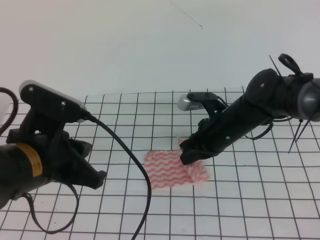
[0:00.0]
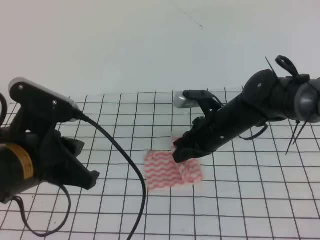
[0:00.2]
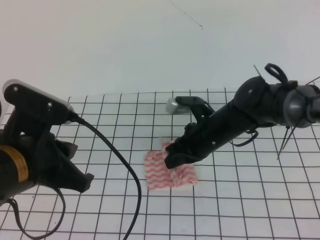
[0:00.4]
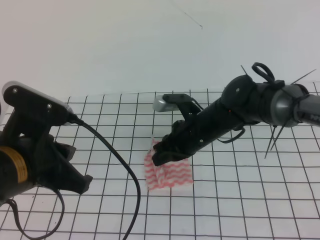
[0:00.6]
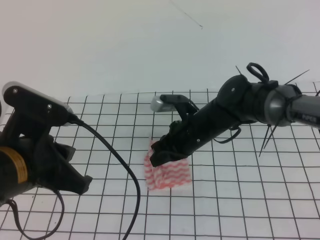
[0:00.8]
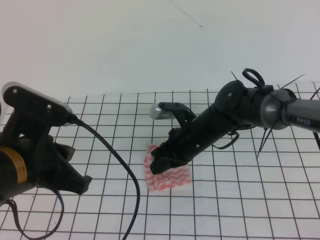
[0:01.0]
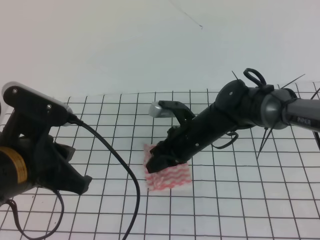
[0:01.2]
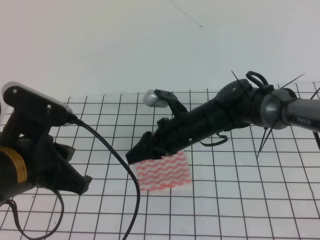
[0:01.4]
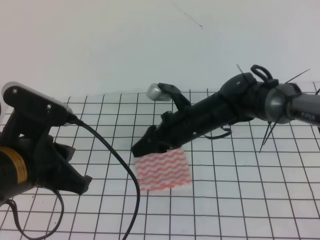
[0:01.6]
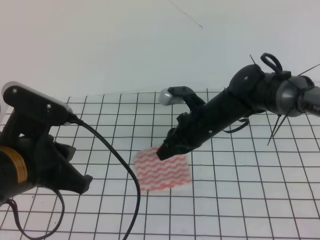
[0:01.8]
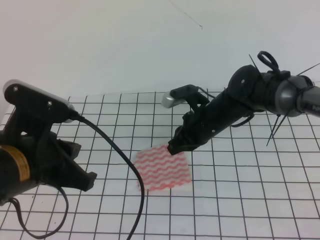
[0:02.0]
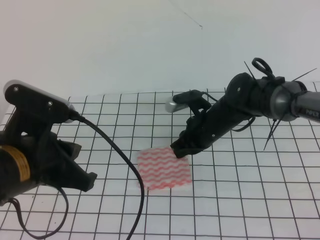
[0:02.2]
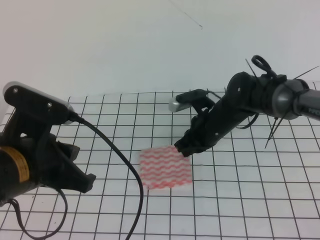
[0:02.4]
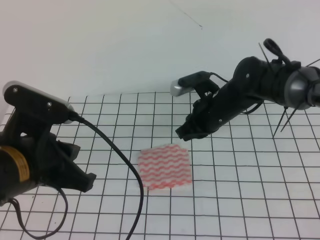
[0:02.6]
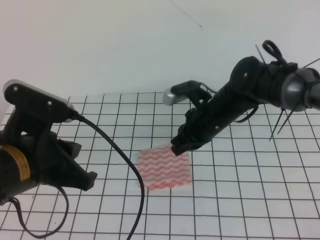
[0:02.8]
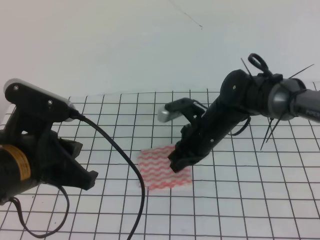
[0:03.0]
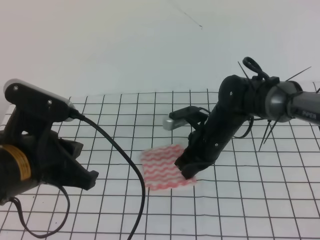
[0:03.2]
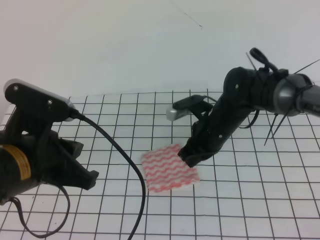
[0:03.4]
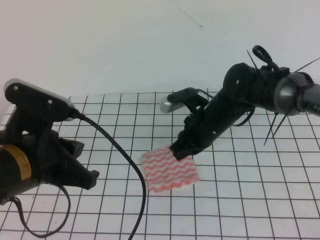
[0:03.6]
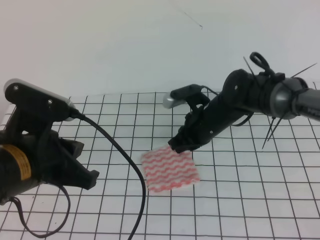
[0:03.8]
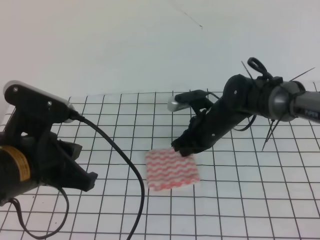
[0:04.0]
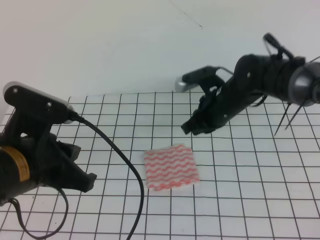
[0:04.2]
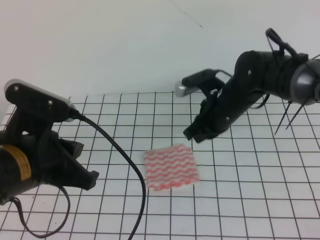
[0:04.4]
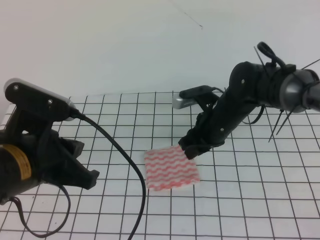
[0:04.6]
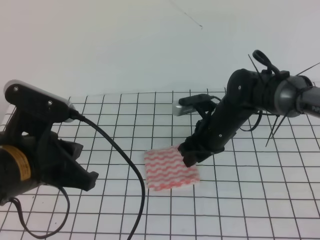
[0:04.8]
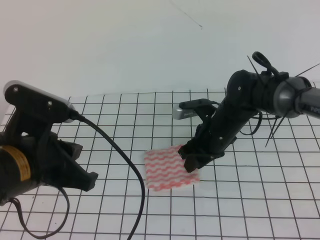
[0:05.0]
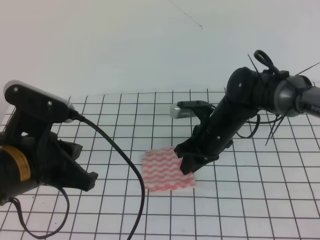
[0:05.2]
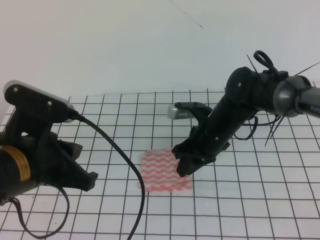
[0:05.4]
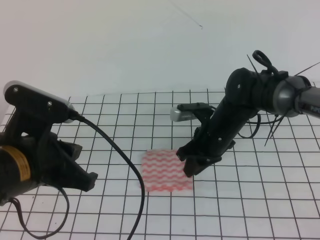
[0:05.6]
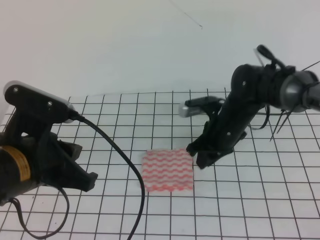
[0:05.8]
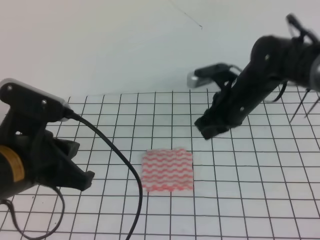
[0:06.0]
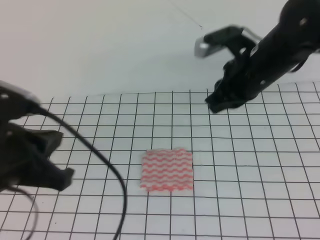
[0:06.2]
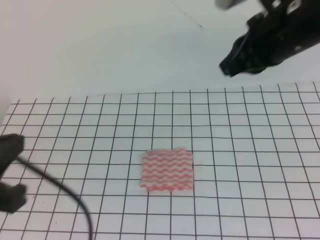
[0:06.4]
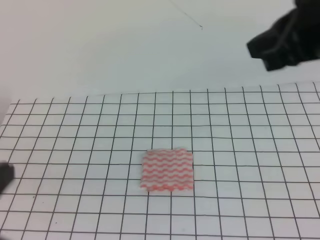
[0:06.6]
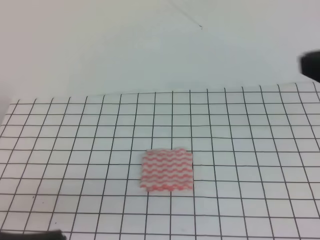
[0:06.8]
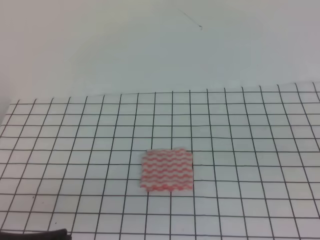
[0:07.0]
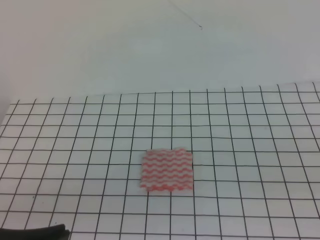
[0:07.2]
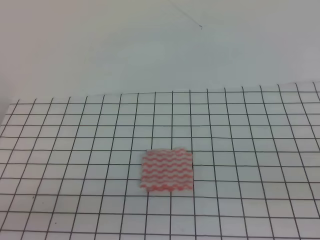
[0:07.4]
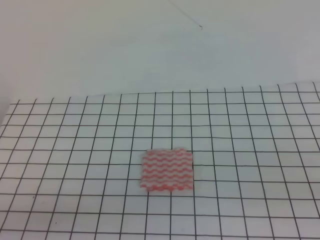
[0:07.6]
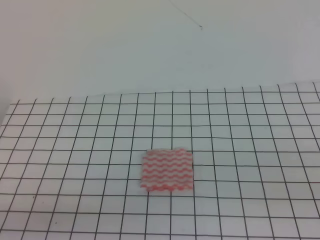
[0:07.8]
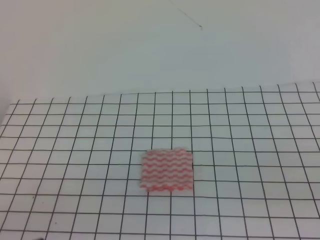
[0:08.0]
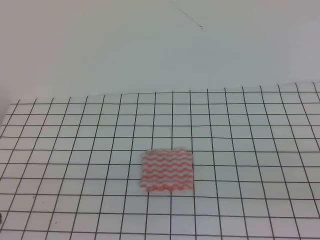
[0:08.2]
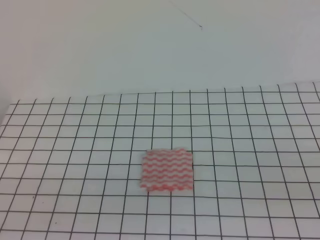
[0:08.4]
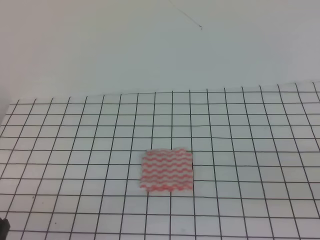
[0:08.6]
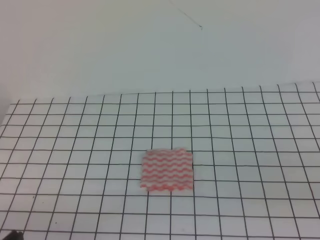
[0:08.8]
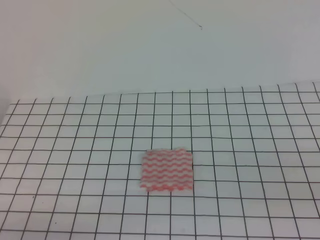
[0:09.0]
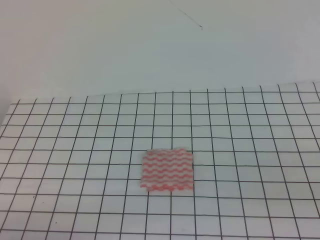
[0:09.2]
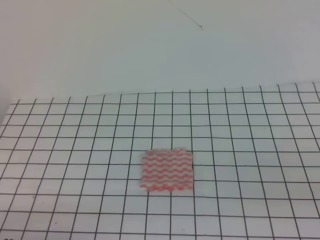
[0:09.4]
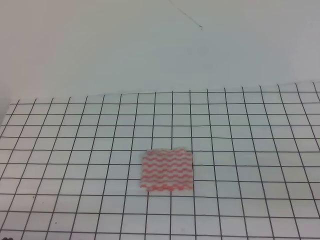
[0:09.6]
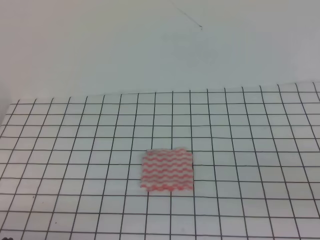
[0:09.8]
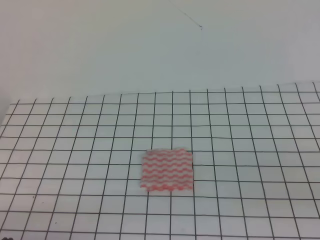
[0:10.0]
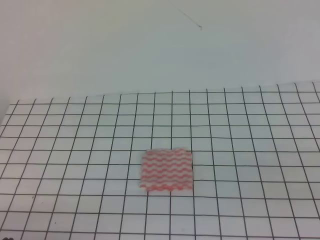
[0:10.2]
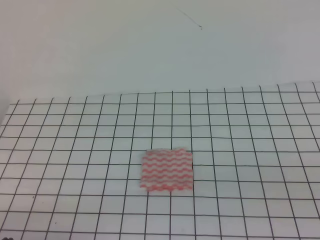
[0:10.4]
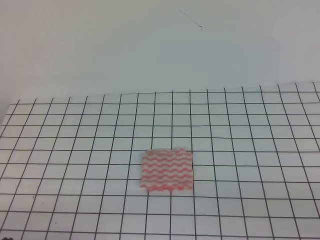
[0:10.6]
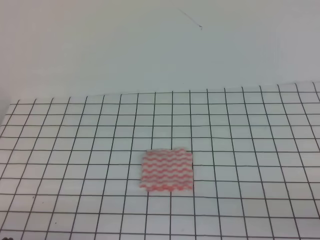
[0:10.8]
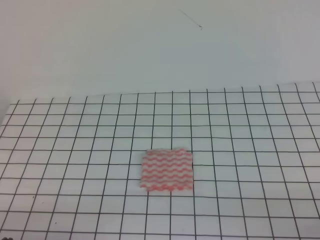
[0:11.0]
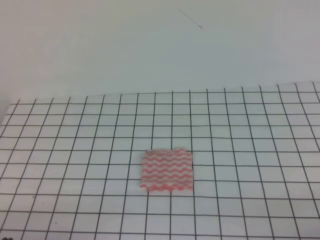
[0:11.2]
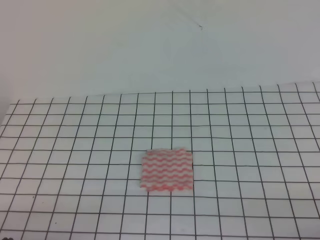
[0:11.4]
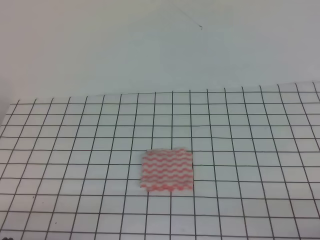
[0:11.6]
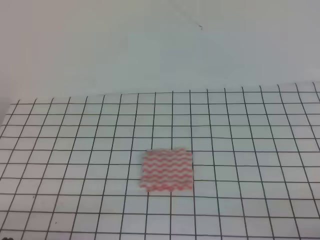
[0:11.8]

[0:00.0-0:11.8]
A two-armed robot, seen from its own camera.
Step, 0:00.0 to 0:11.8: Fold the towel.
0:00.0 to 0:01.4: The right gripper heads to the left, covering some 5 cm, and opens up.
0:01.4 to 0:03.0: The right gripper closes its fingers.
0:03.0 to 0:04.4: The grippers move only a little.
0:04.4 to 0:06.0: The right gripper opens, then closes once more.
0:06.0 to 0:07.4: The right gripper travels backward and to the right by approximately 35 cm, and closes. The left gripper is displaced backward by about 15 cm.
